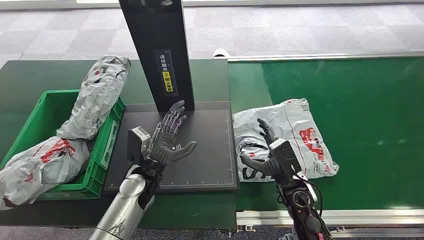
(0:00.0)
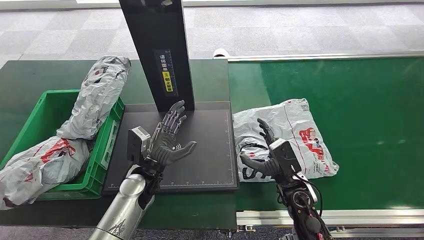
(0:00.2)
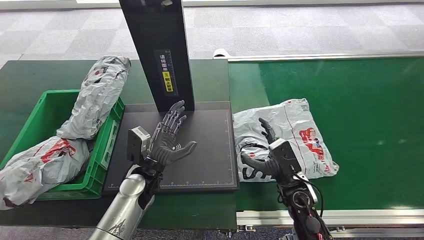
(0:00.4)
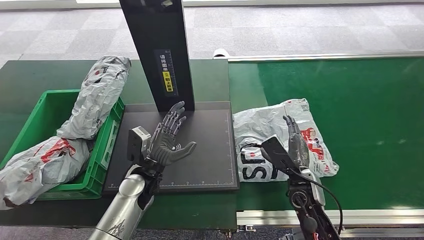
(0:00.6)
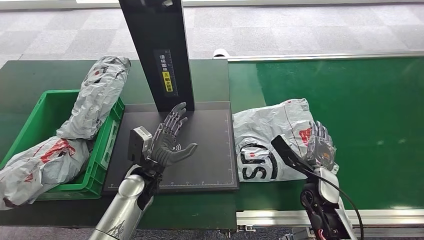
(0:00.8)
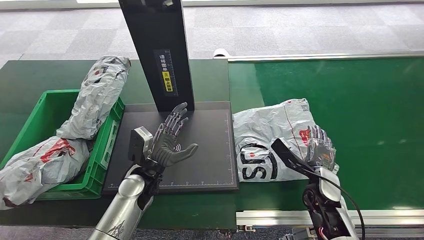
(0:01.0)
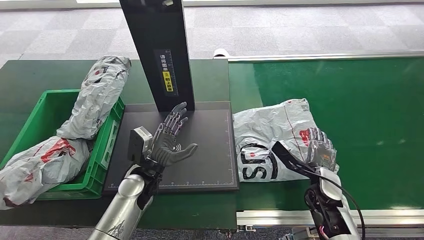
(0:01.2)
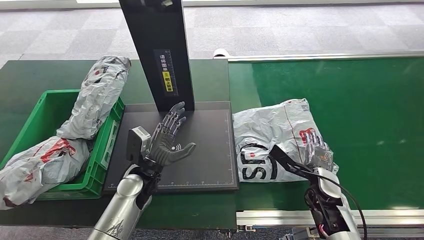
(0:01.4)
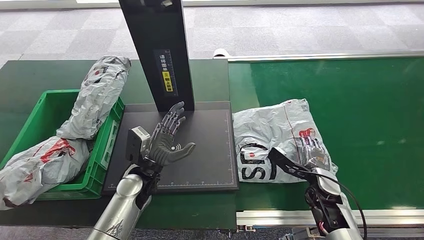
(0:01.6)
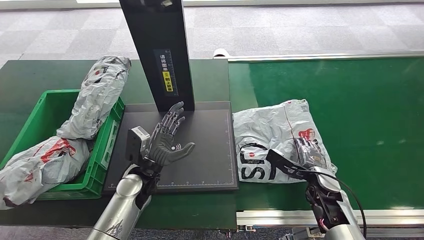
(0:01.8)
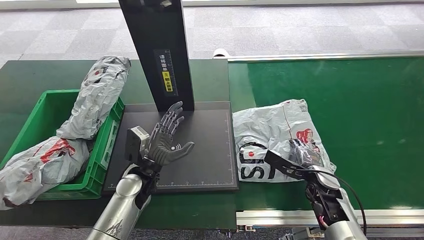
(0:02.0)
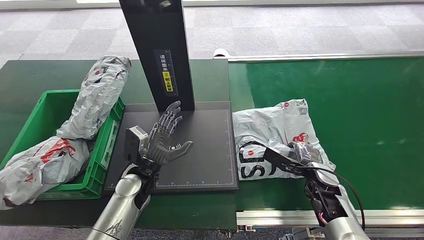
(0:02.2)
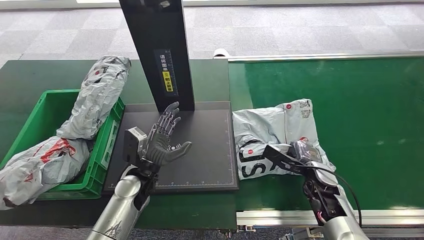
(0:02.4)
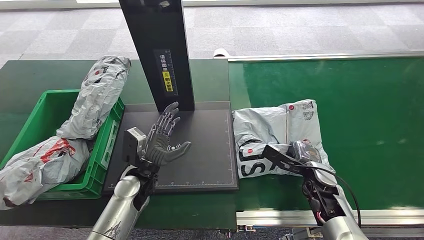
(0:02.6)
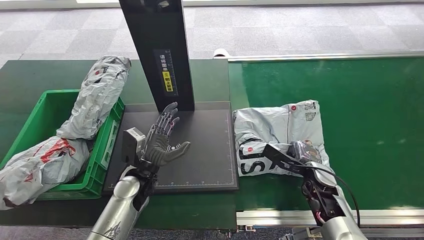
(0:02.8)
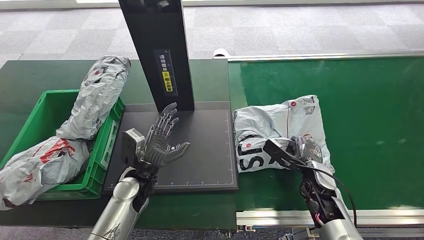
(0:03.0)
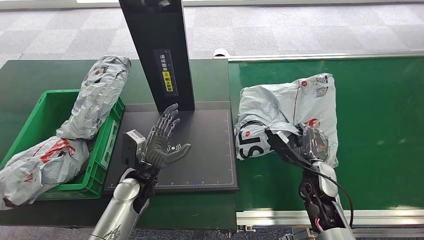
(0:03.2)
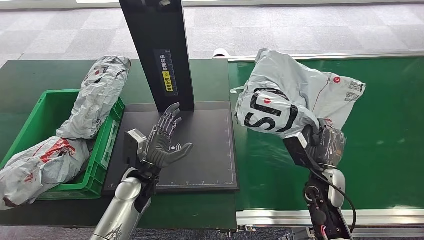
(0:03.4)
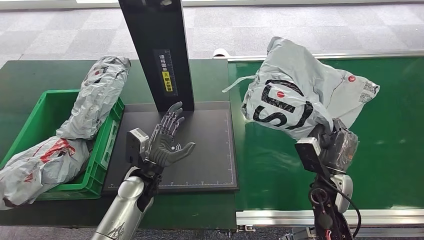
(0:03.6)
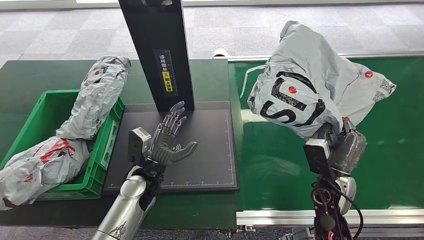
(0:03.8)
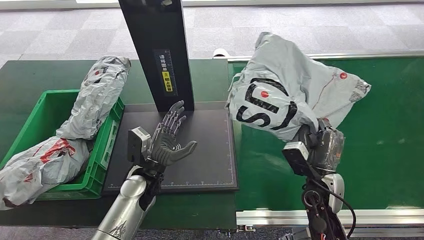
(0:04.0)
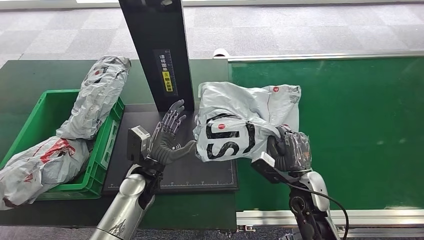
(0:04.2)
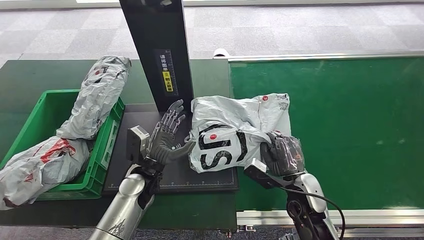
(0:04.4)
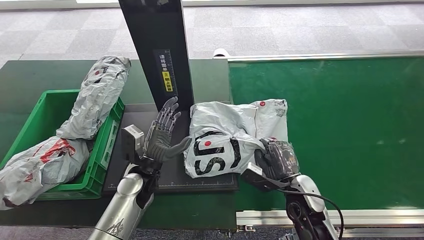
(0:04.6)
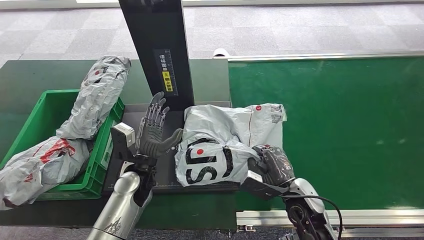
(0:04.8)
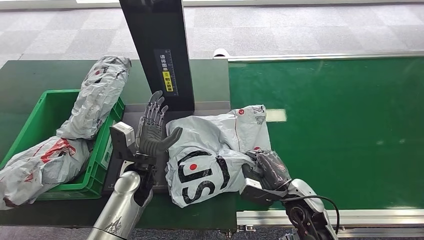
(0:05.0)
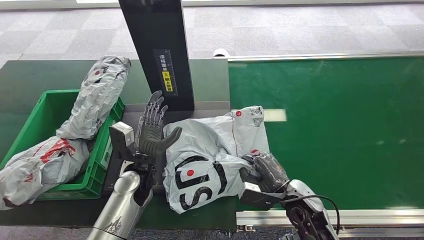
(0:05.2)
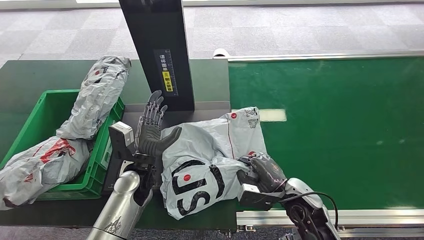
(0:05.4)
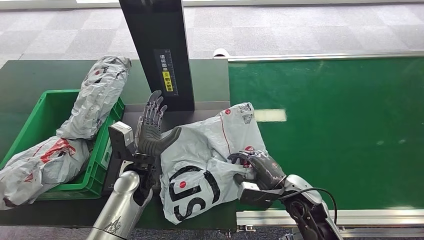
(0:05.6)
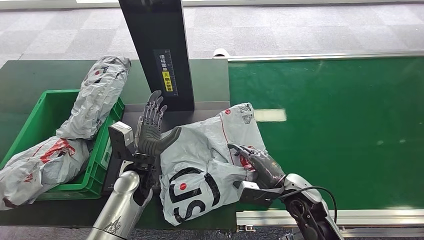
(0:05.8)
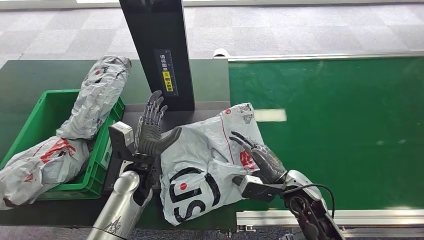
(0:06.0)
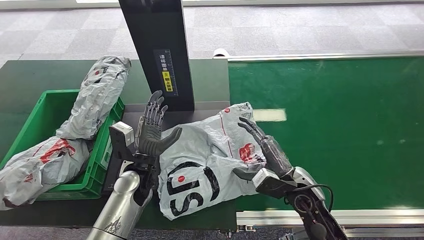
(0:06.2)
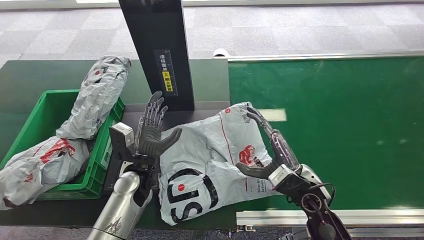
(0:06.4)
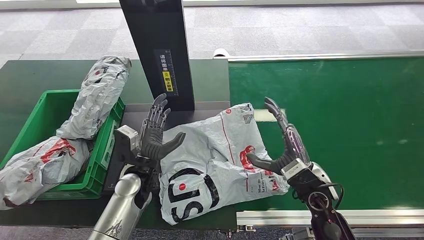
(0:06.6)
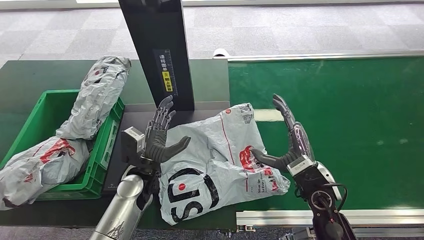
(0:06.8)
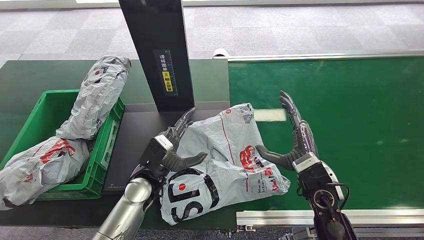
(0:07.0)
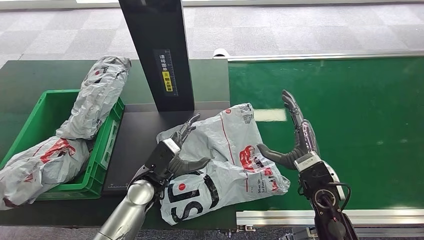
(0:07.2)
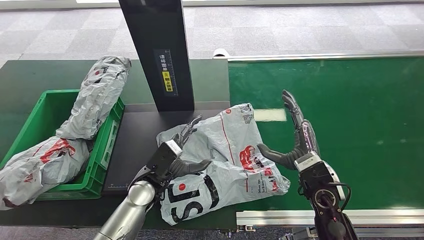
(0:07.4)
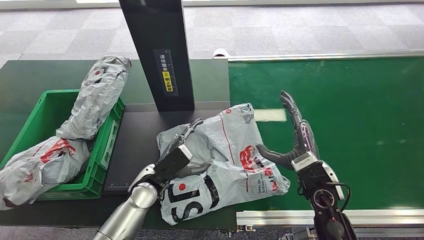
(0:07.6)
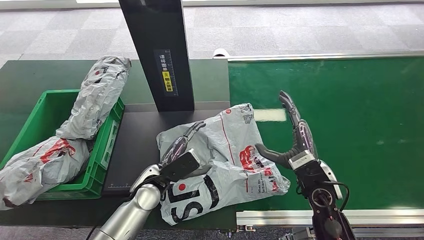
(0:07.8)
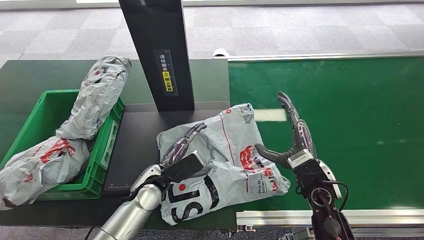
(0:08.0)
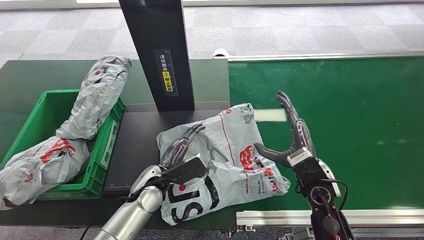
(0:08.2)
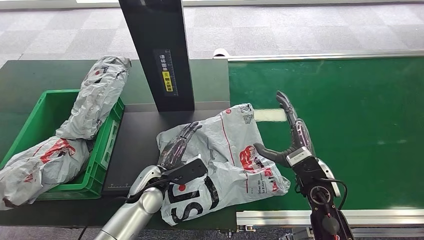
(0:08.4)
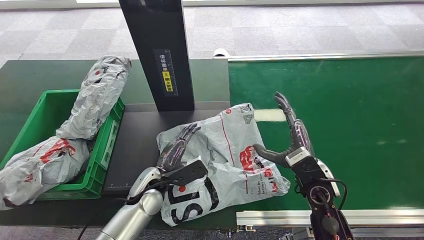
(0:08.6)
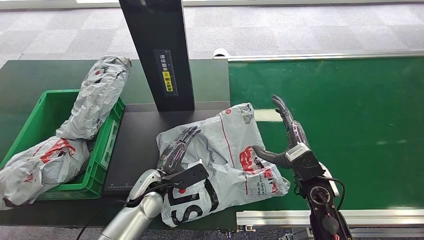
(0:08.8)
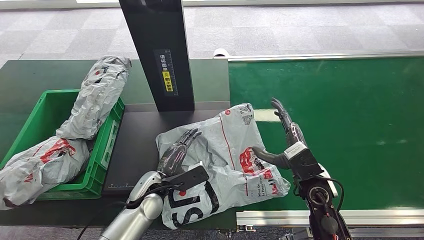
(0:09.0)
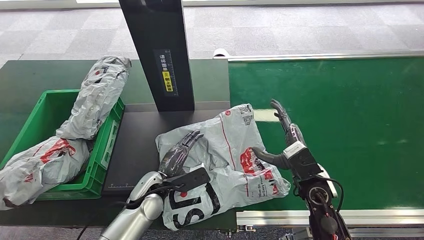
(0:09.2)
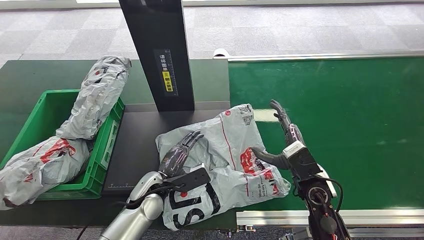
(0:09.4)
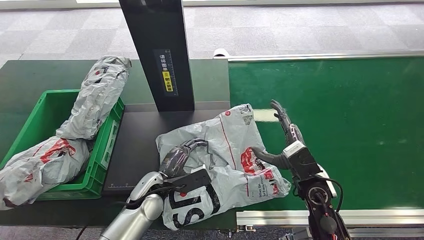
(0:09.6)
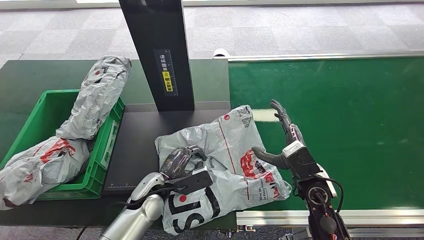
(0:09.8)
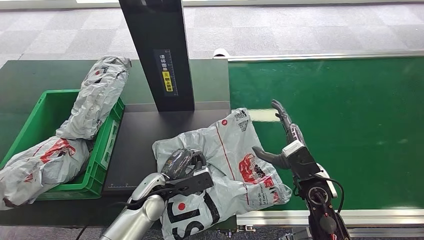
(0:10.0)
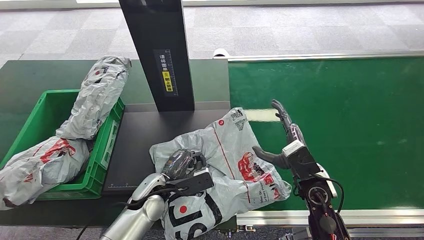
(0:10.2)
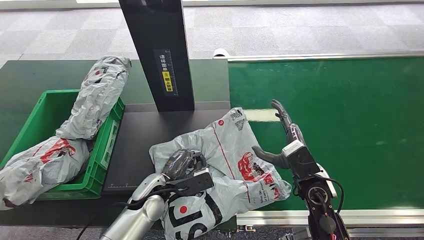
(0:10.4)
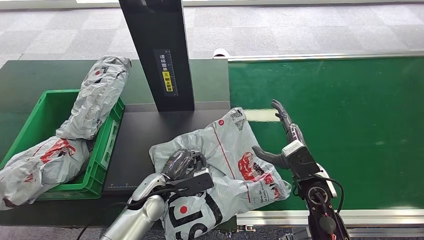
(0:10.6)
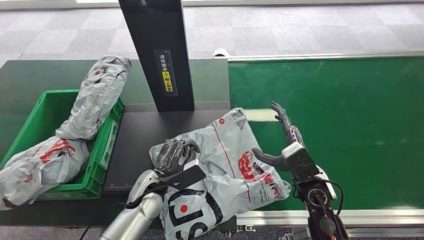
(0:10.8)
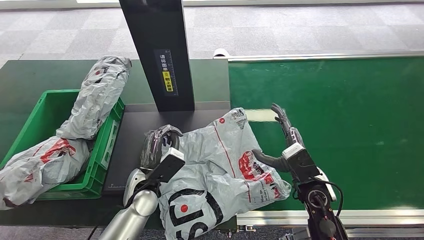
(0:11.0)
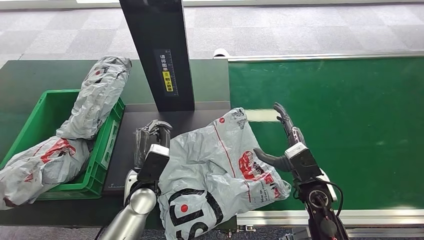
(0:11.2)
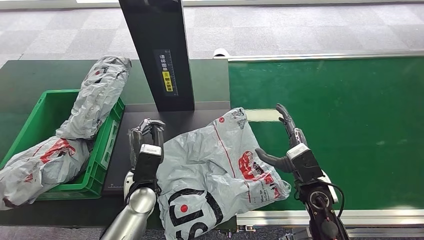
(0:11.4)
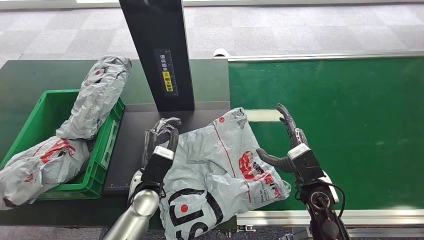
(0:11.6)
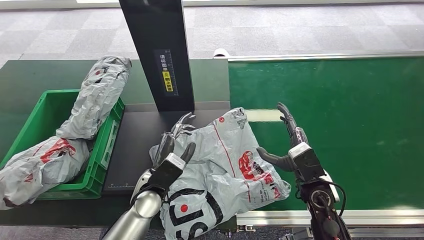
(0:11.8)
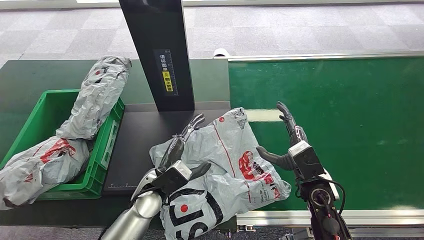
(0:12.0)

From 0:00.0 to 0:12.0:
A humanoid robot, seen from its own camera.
Step, from 0:00.0 to 0:03.6: Pick up the package from the conveyor belt.
Step, from 0:03.8 to 0:06.6: Place the package onto the inbound machine.
From 0:01.6 to 0:03.0: There are only small adjustments of the hands.
From 0:03.0 to 0:04.4: The right hand travels to the left by some 5 cm.
From 0:06.0 to 0:07.6: The right hand is displaced upward by approximately 5 cm.
From 0:09.0 to 0:10.4: The hands make only small movements.

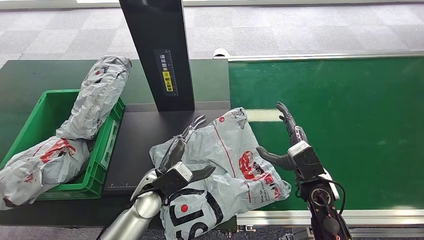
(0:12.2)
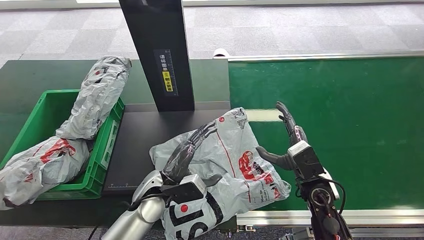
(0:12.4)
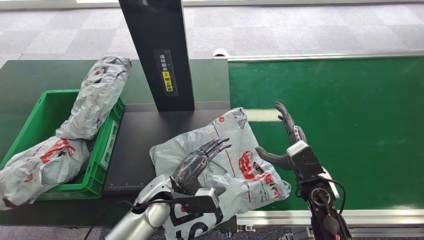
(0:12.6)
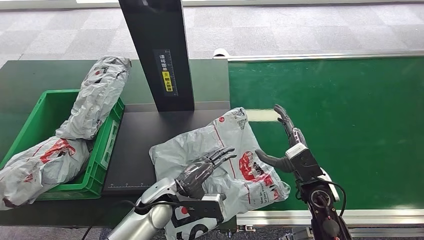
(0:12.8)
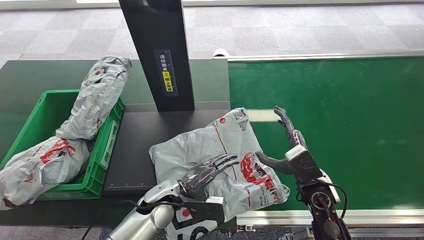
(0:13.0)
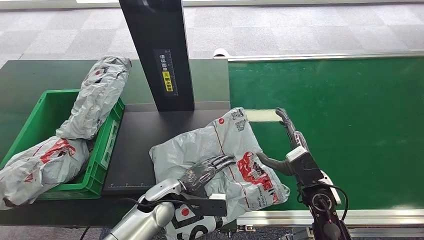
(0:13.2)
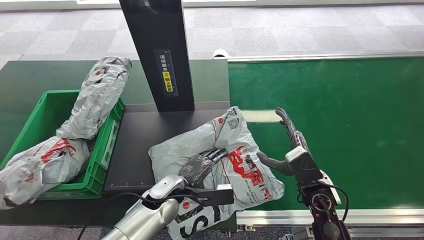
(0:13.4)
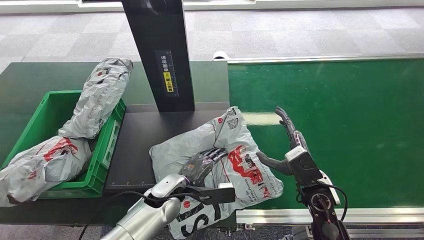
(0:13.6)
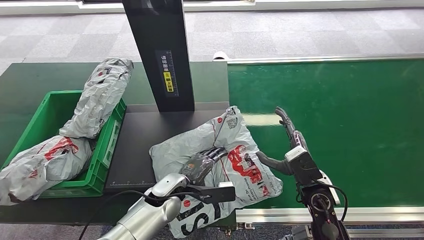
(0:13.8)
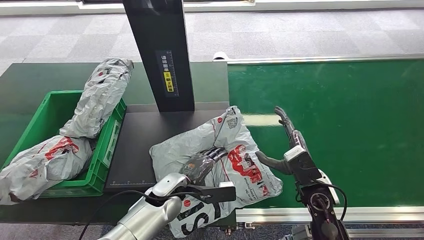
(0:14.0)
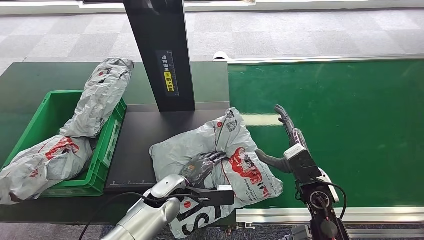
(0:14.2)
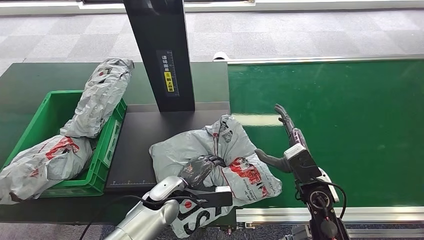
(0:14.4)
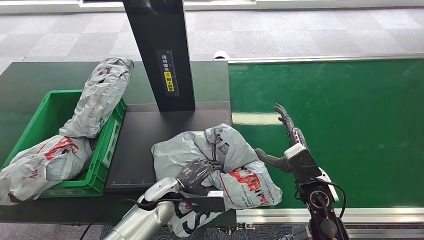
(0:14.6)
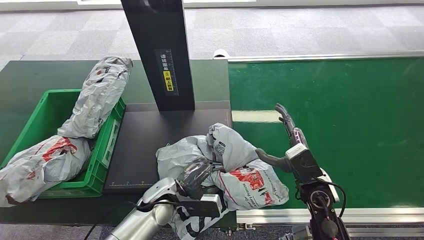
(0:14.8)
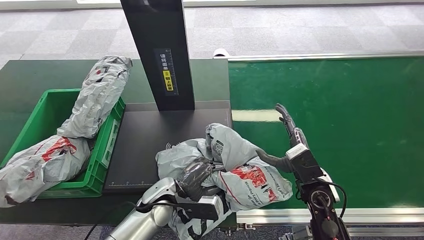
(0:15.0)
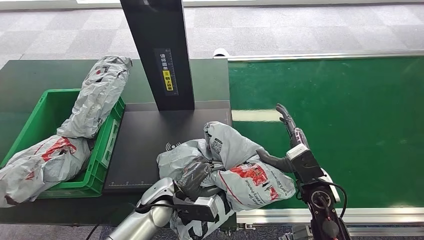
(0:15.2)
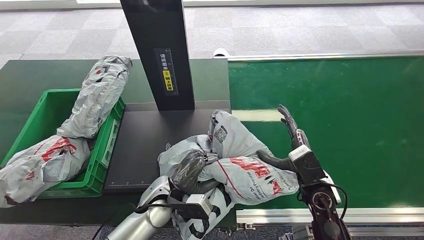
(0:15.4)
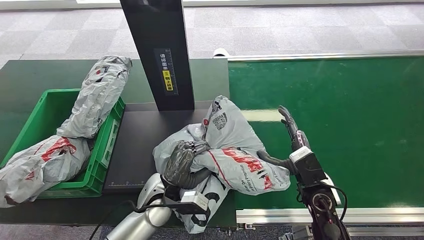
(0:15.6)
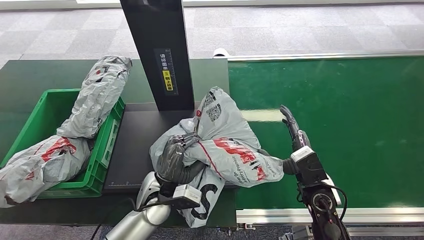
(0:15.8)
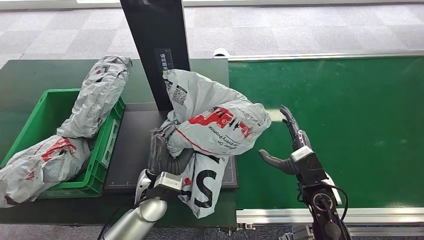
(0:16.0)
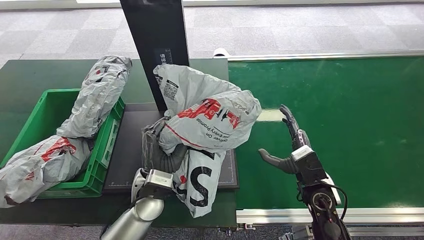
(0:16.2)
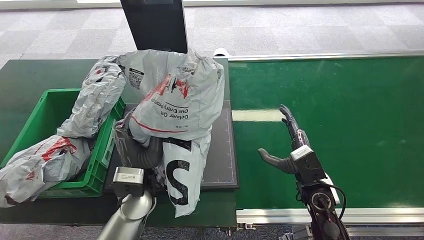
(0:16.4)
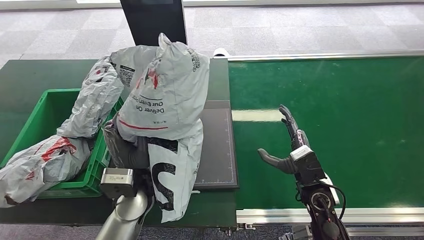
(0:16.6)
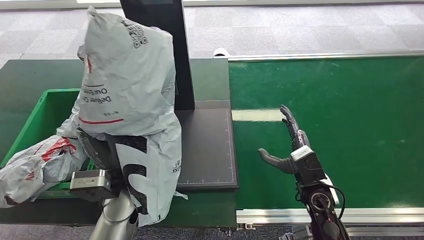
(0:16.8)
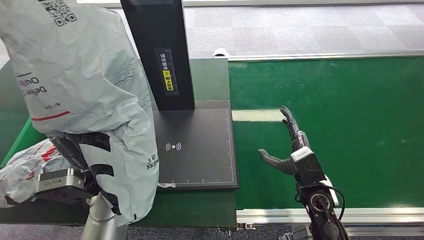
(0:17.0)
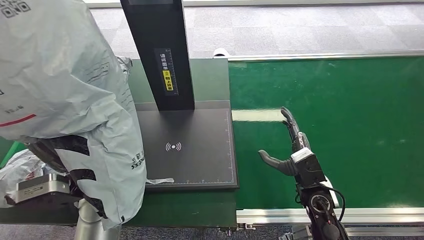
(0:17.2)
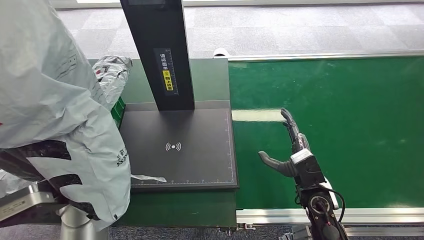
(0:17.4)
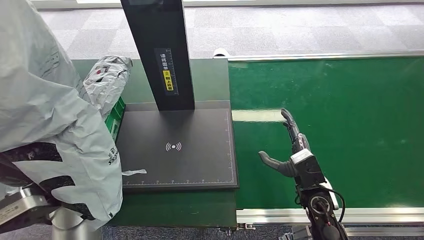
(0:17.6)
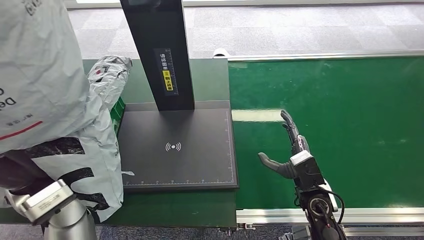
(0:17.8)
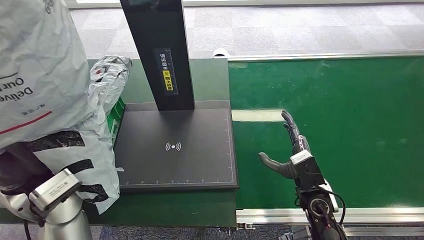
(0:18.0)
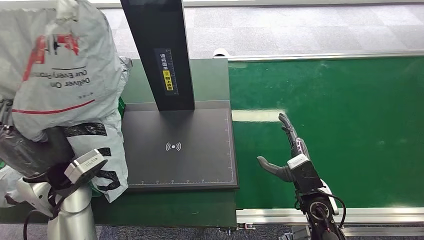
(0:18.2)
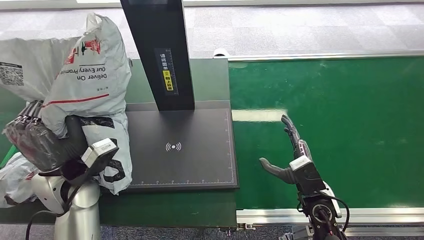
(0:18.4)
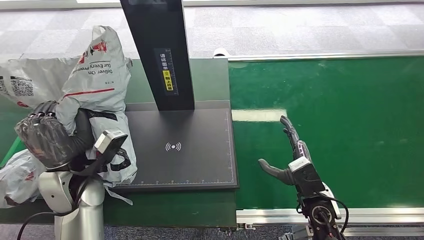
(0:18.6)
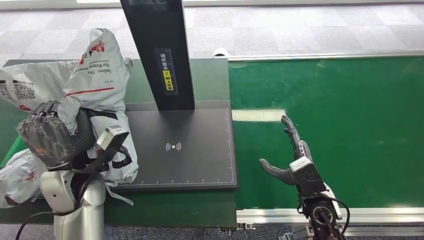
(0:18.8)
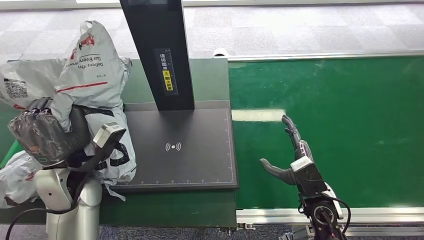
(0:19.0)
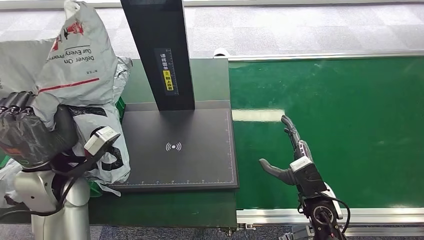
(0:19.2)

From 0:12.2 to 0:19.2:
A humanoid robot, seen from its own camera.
Step, from 0:12.2 to 0:16.6: Pick up the package from the inbound machine.
